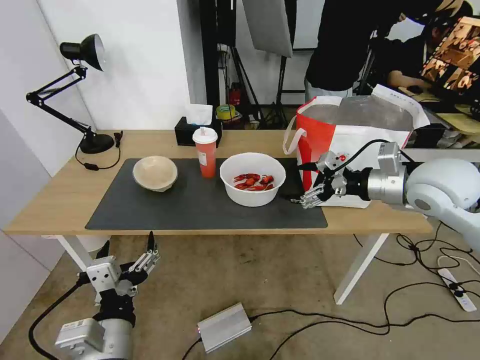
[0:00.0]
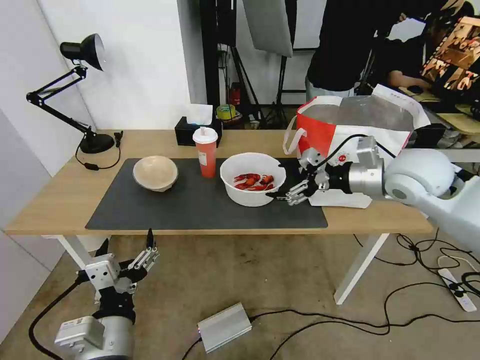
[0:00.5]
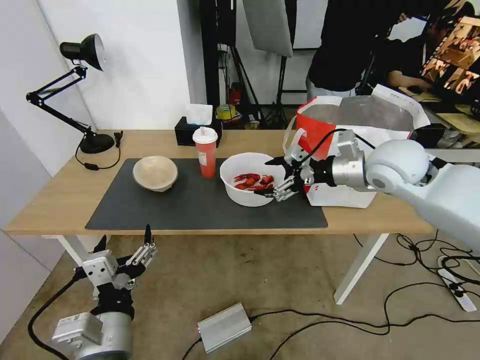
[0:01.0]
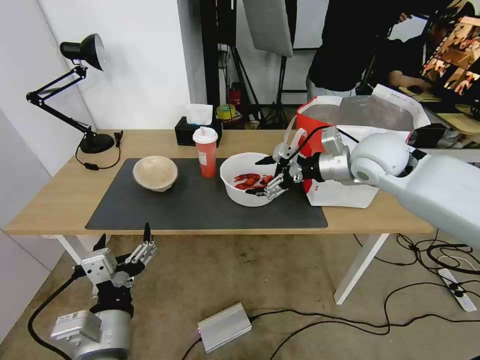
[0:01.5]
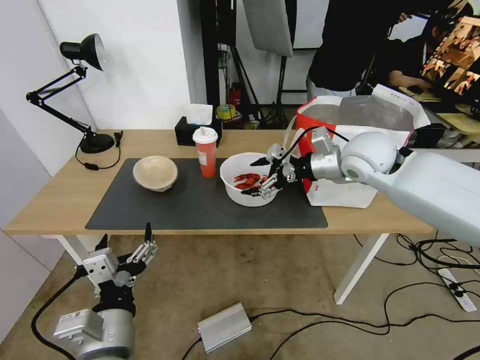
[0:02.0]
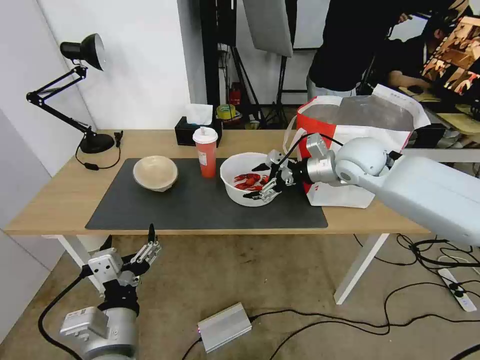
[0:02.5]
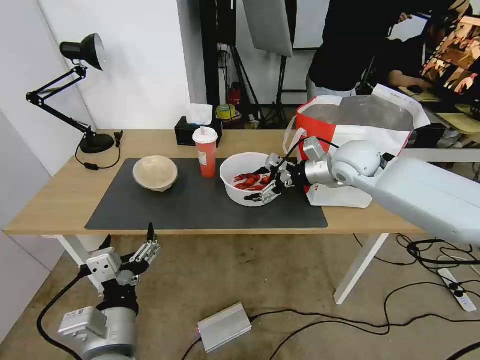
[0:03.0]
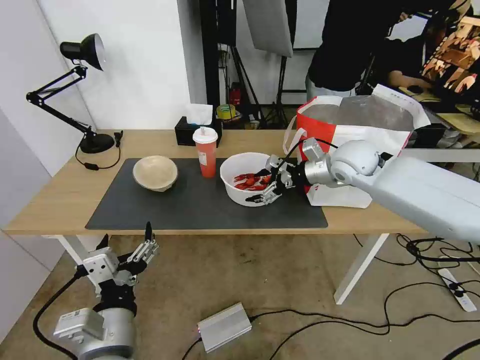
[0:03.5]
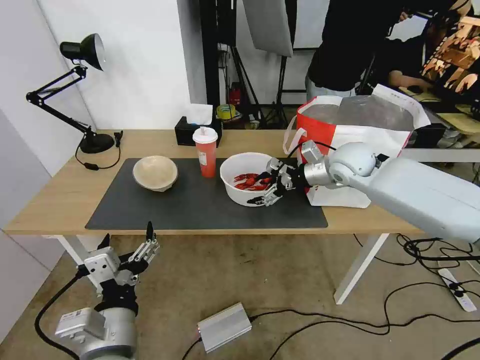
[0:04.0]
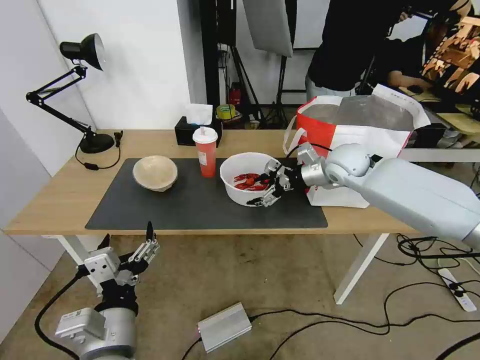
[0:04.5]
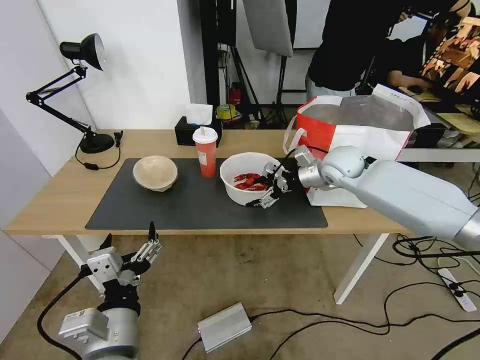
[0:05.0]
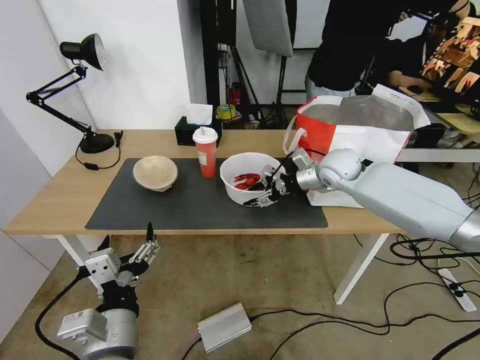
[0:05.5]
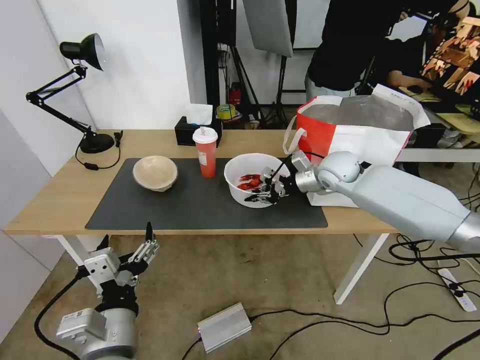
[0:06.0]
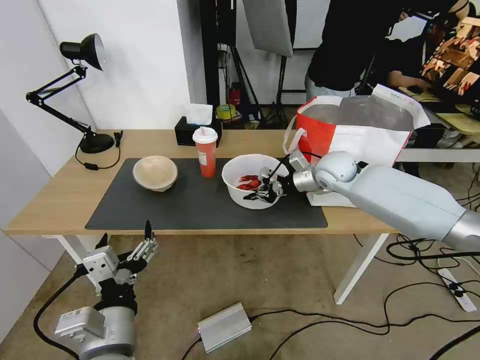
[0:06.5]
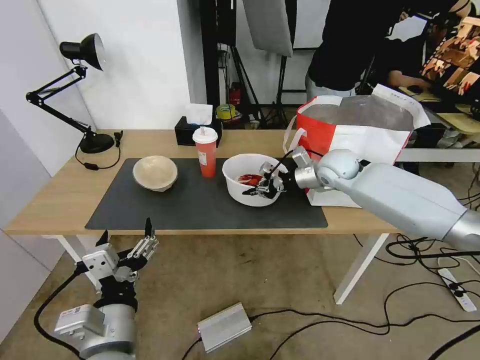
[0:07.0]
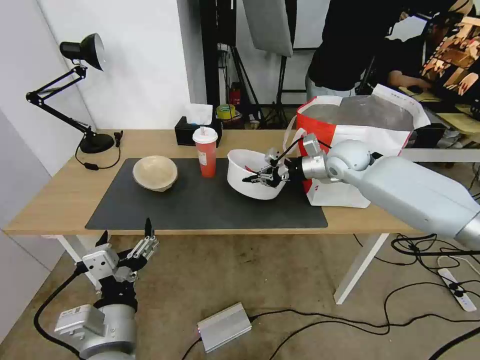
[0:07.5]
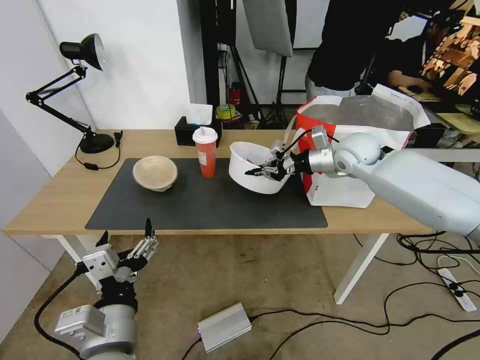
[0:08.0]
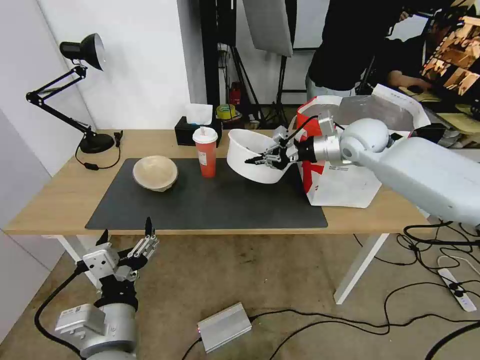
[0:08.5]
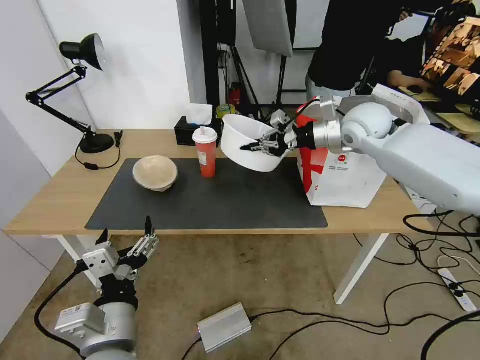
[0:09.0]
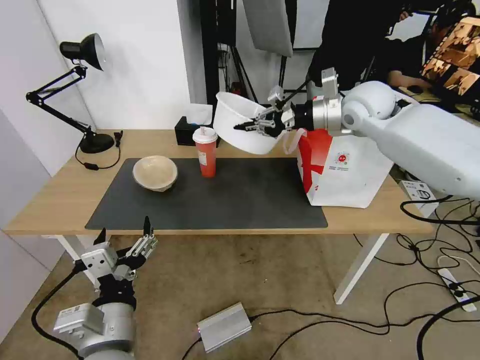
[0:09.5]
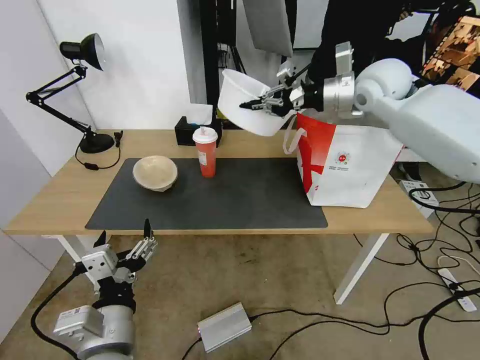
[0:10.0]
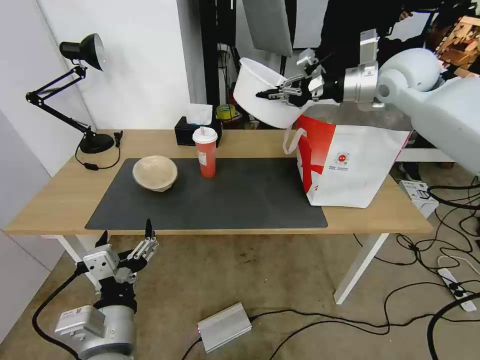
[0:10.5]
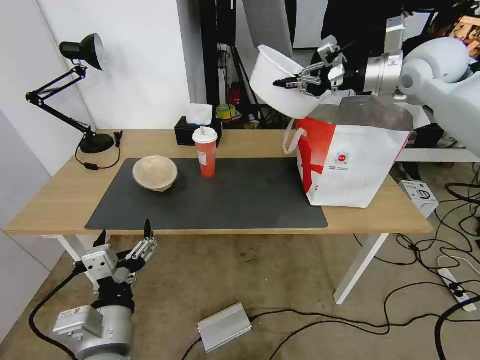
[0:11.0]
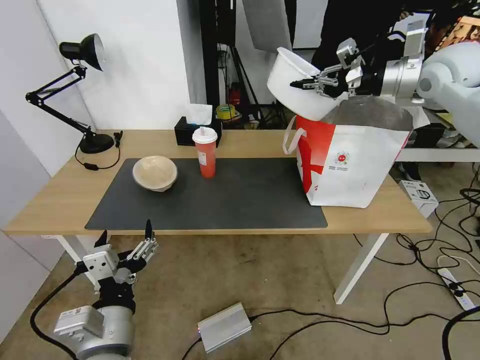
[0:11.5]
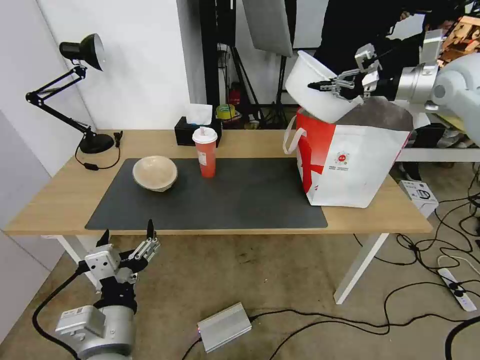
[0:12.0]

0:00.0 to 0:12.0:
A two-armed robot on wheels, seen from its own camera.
Task of the whole recording: Pick up the trash from the table and place it into the takeout bag.
0:00.0 to 0:02.0: The right gripper heads forward and to the left, covering about 10 cm.
0:02.0 to 0:04.0: The right gripper moves downward, approximately 5 cm.
0:04.0 to 0:06.0: The right gripper closes its fingers.
0:06.0 to 0:08.0: The right gripper travels upward by about 5 cm.
0:08.0 to 0:10.0: The right gripper heads upward, covering approximately 15 cm.
0:10.0 to 0:12.0: The right gripper goes roughly 15 cm to the right.

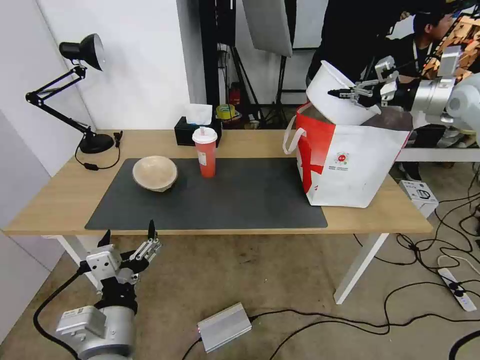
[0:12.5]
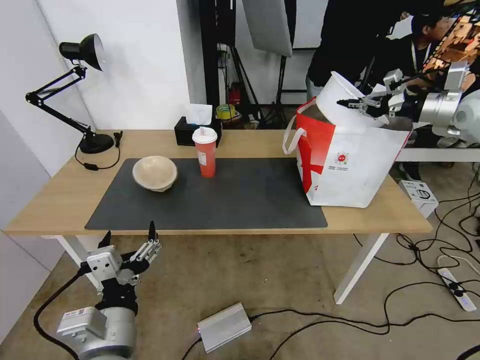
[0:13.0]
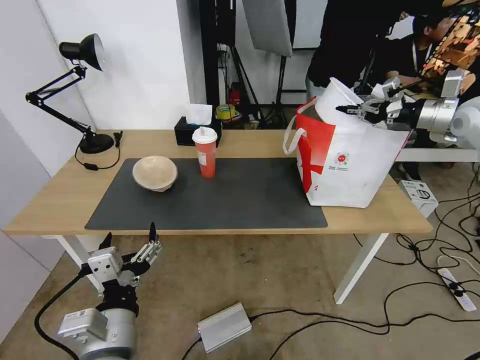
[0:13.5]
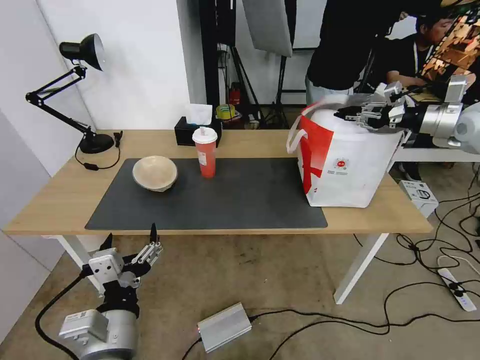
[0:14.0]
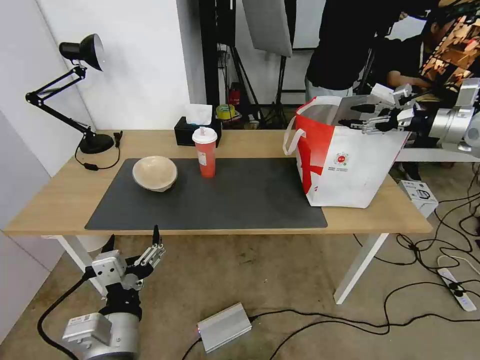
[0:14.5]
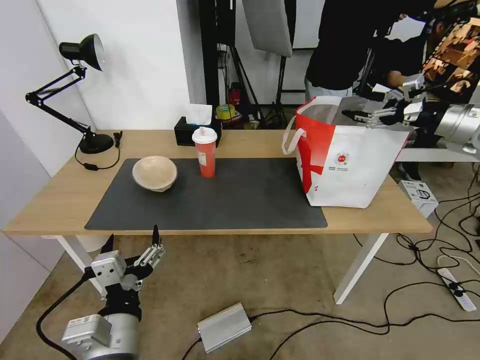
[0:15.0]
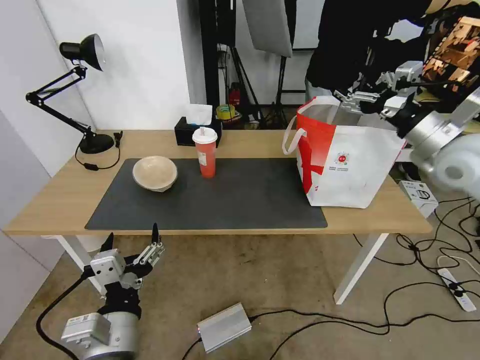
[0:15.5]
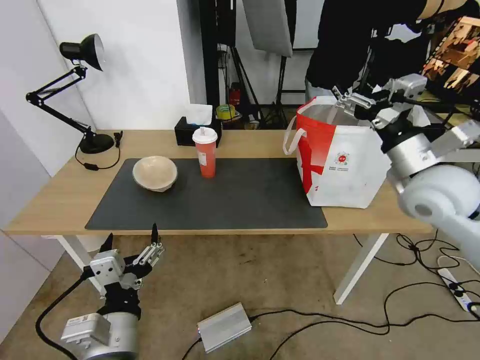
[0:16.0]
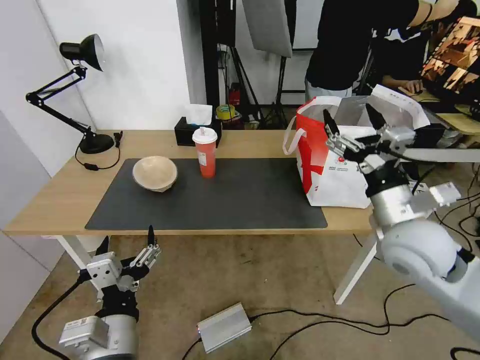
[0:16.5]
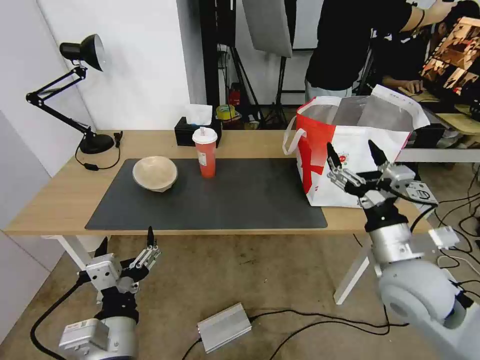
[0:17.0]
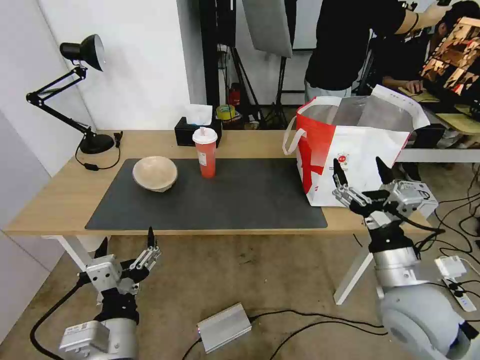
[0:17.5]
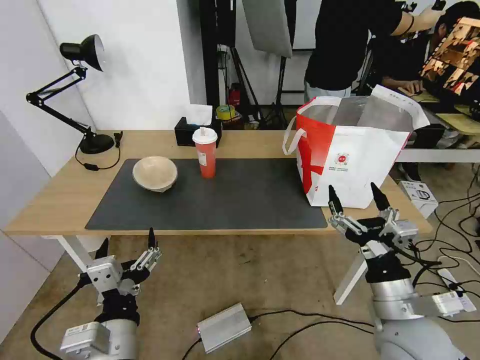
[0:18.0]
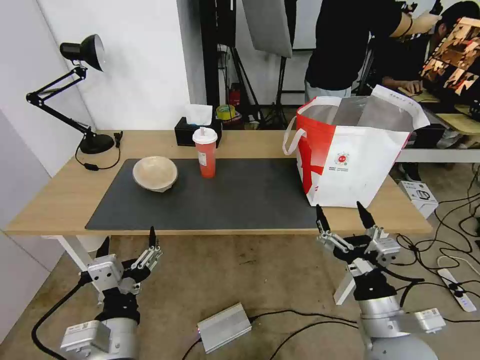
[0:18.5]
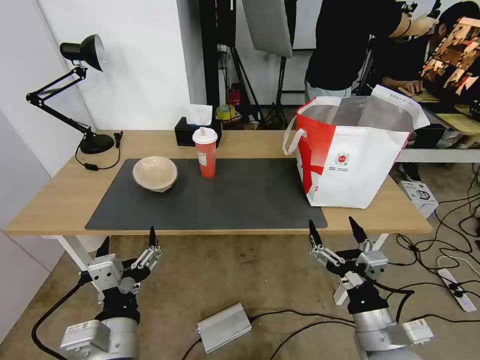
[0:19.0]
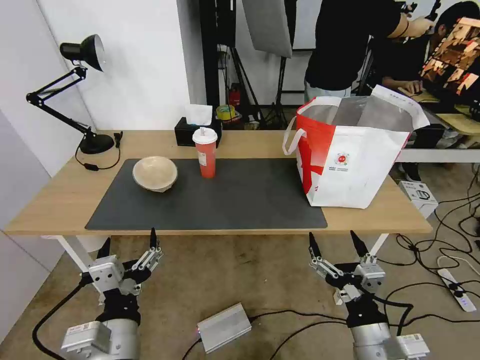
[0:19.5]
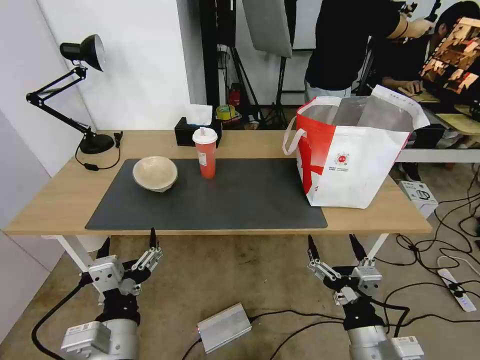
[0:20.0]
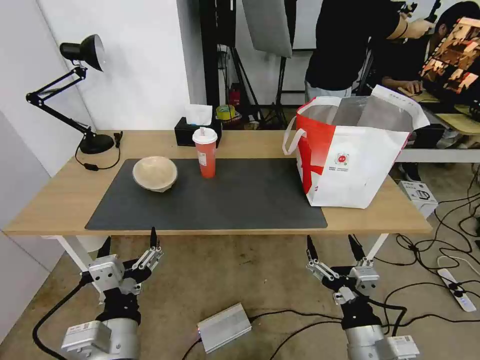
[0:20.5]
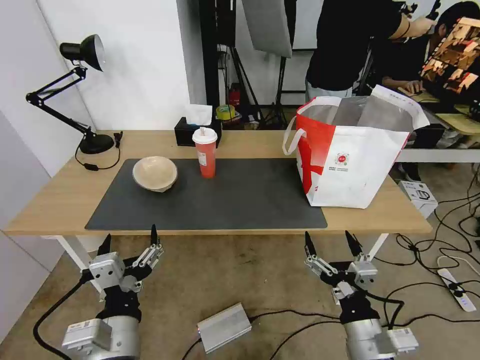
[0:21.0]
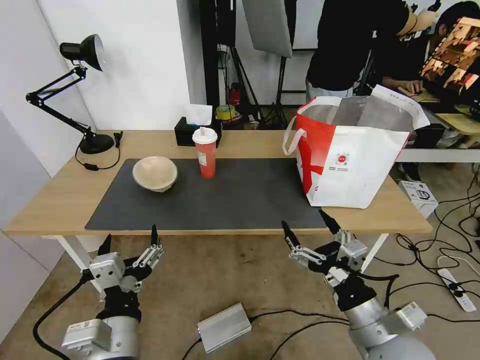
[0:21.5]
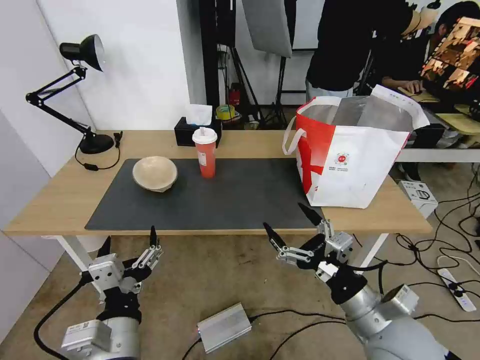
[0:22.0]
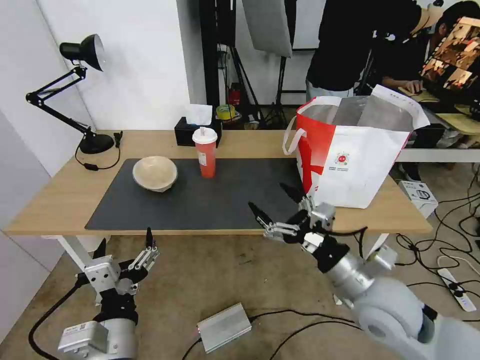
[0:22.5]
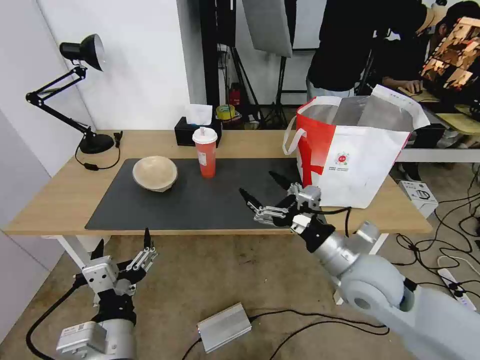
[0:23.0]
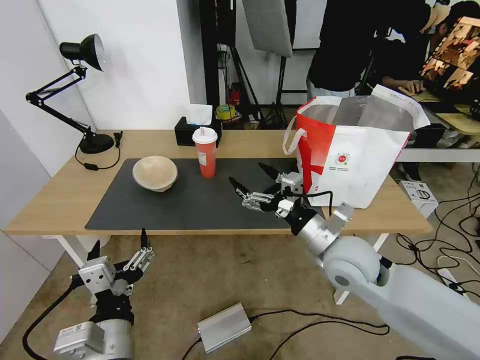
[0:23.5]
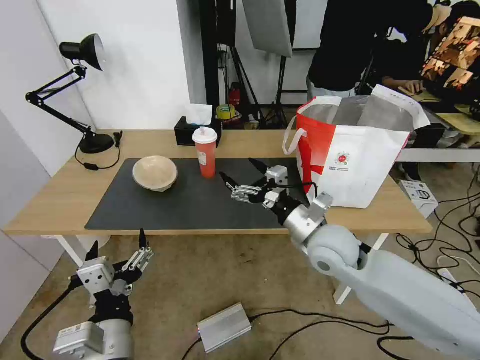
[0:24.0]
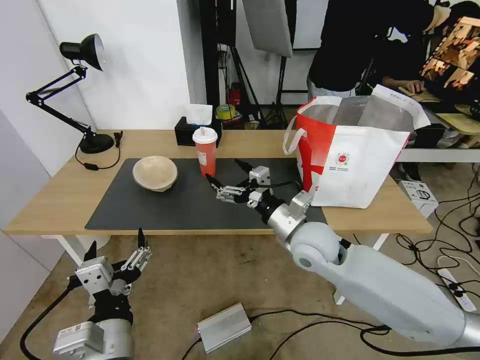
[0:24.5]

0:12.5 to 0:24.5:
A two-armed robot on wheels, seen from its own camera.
Task of the whole recording: Pick up the trash from the table and place it into the takeout bag.
0:12.5 to 0:14.5: The right gripper moves some 5 cm, and opens up.
0:14.5 to 0:16.5: The right gripper travels to the left, backward and downward by some 30 cm.
0:16.5 to 0:18.5: The right gripper shifts about 20 cm backward and downward.
0:18.5 to 0:20.5: The right gripper changes place by roughly 5 cm.
0:20.5 to 0:22.5: The right gripper shifts roughly 15 cm forward and upward.
0:22.5 to 0:24.5: The right gripper shifts some 15 cm forward and to the left.

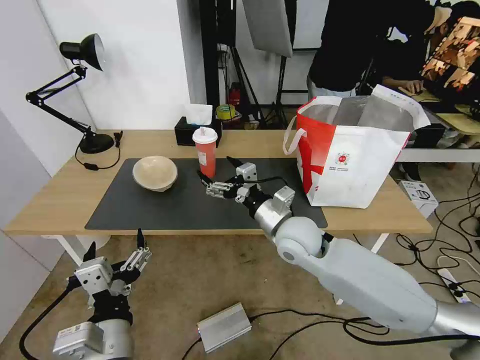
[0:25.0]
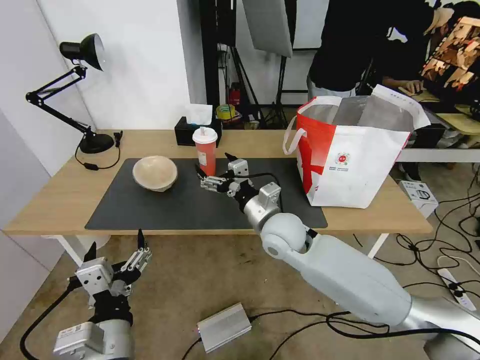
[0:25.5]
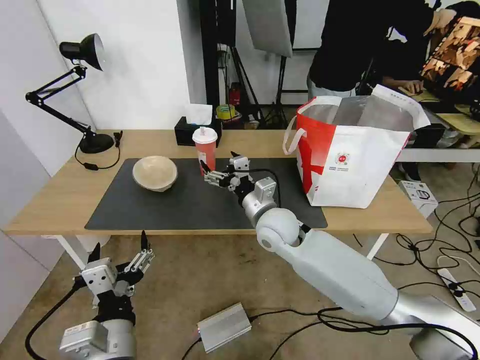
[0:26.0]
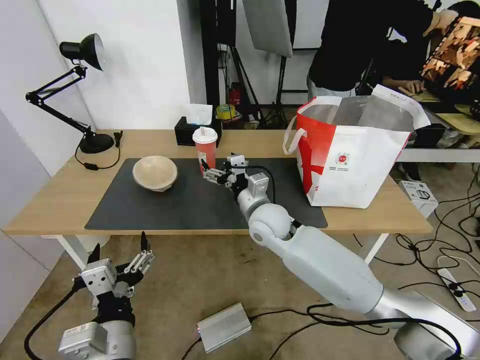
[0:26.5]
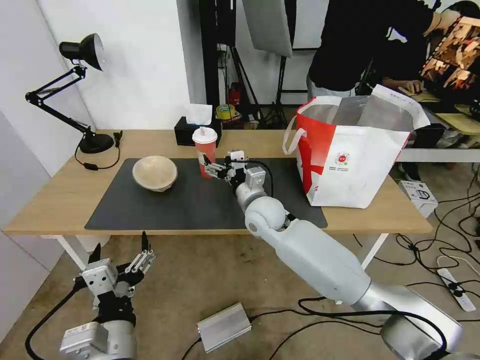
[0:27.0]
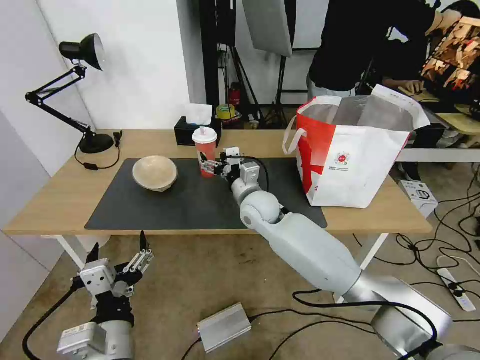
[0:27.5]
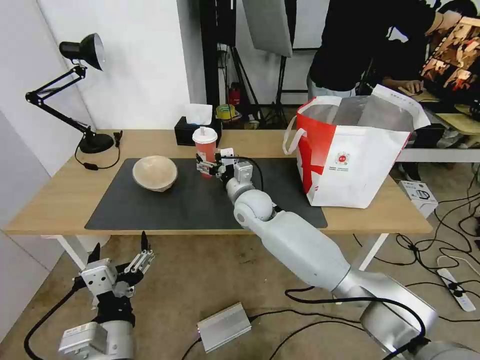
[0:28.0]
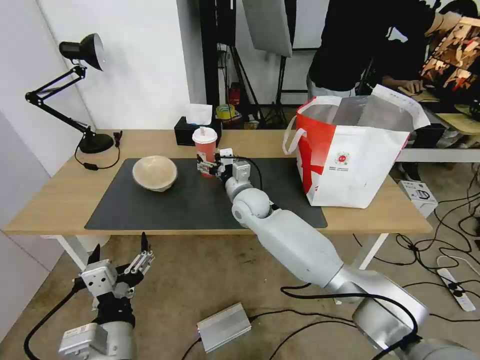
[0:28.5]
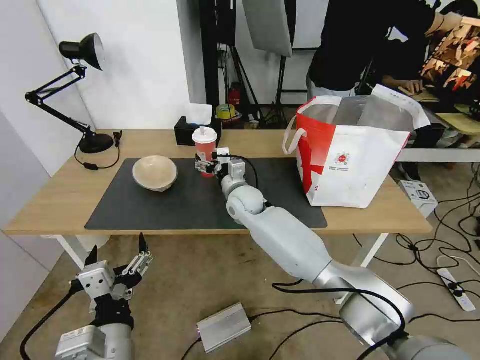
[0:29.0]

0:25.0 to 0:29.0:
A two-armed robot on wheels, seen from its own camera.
Task of the whole recording: Pick up the trash from the table and place it into the takeout bag.
0:25.0 to 0:27.0: The right gripper travels forward and to the left by roughly 10 cm.
0:27.0 to 0:29.0: The right gripper goes some 5 cm forward.
